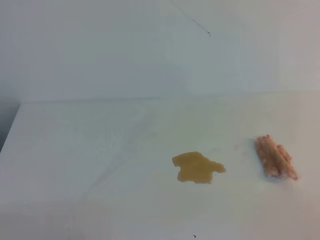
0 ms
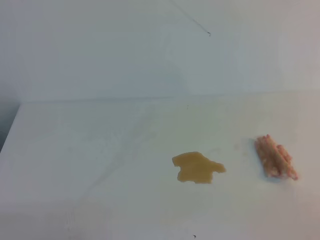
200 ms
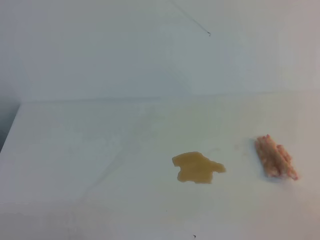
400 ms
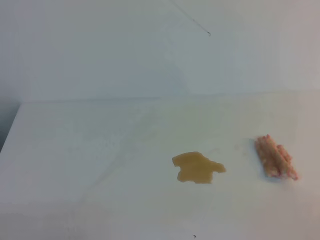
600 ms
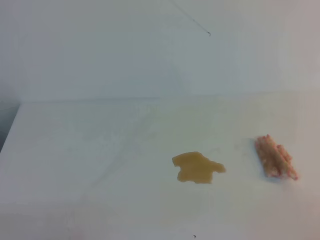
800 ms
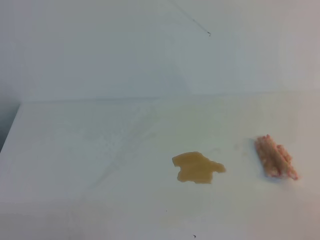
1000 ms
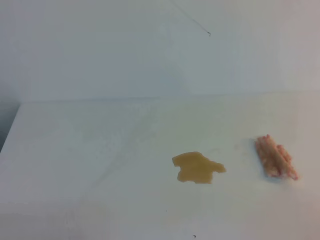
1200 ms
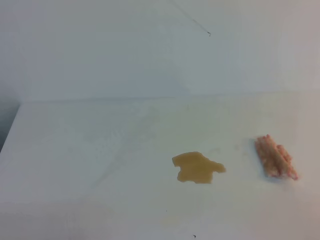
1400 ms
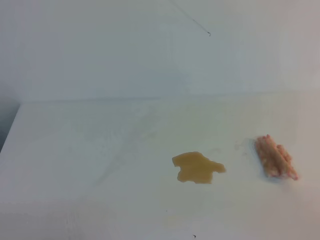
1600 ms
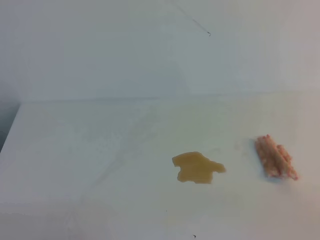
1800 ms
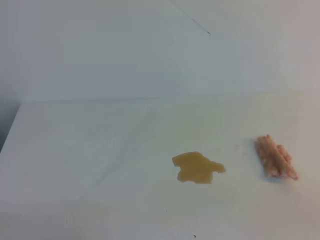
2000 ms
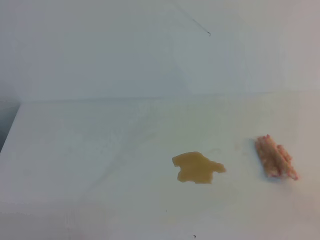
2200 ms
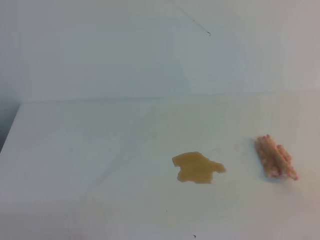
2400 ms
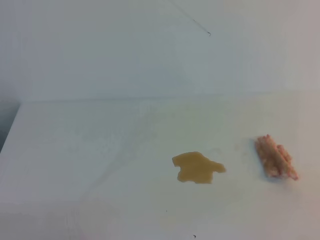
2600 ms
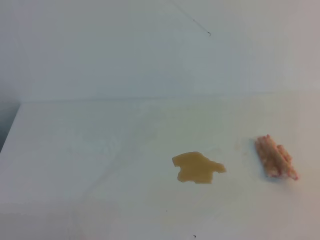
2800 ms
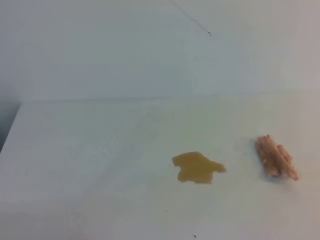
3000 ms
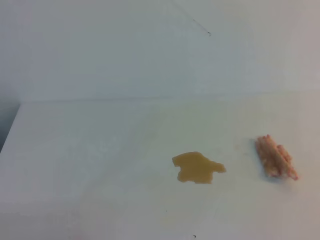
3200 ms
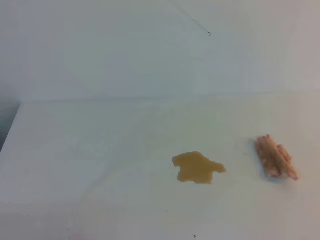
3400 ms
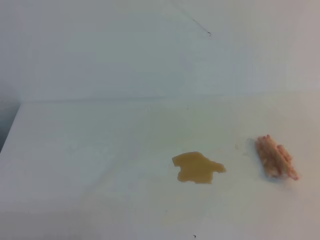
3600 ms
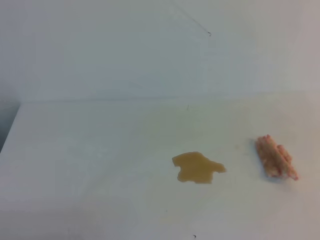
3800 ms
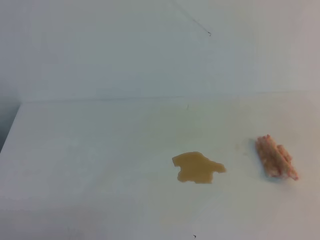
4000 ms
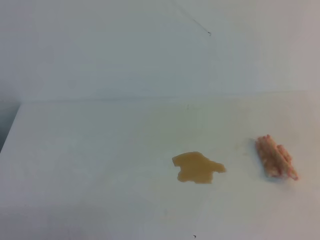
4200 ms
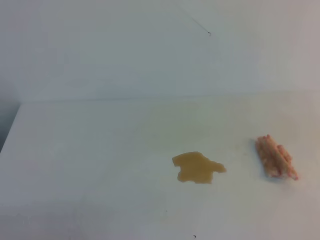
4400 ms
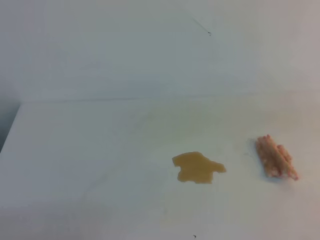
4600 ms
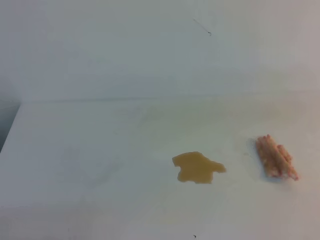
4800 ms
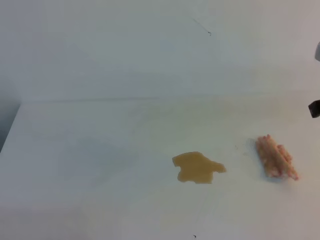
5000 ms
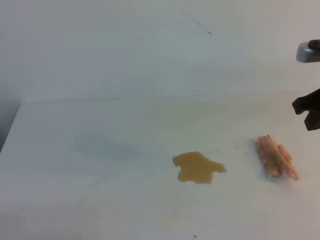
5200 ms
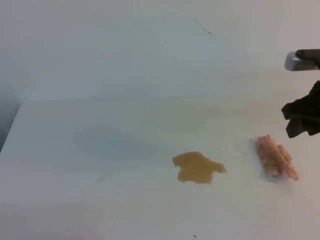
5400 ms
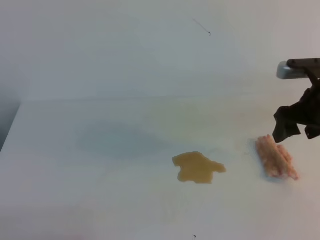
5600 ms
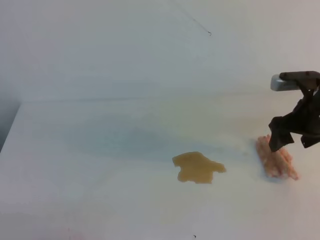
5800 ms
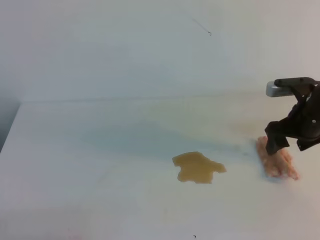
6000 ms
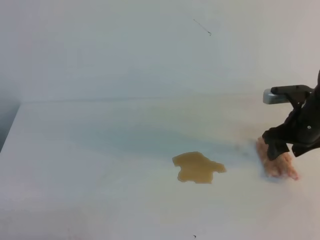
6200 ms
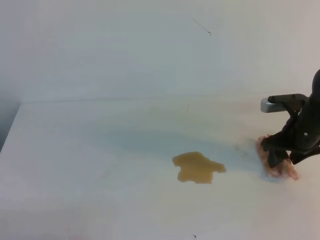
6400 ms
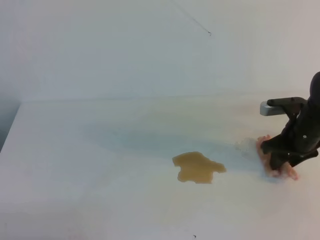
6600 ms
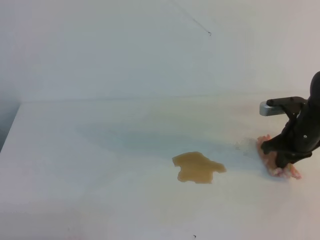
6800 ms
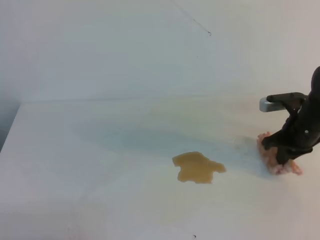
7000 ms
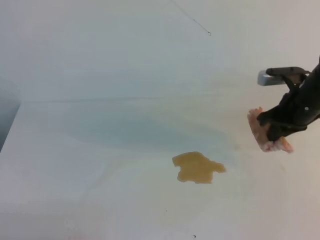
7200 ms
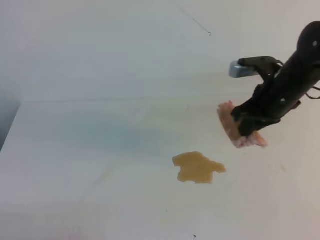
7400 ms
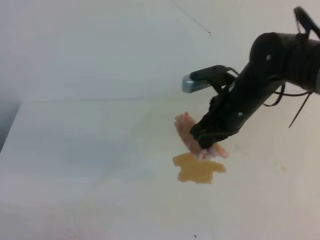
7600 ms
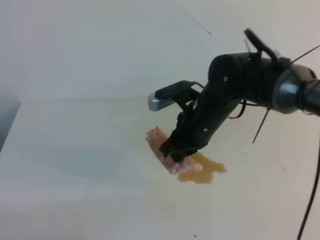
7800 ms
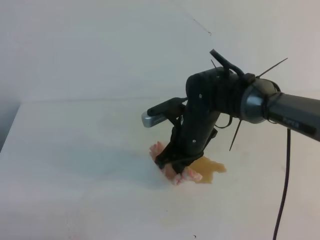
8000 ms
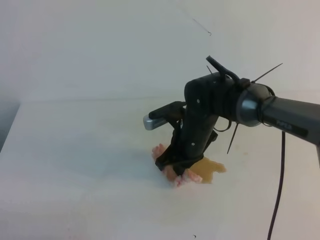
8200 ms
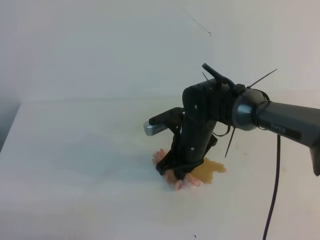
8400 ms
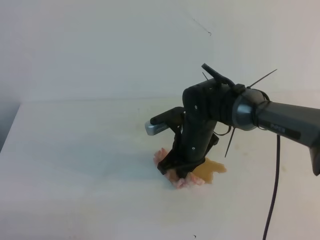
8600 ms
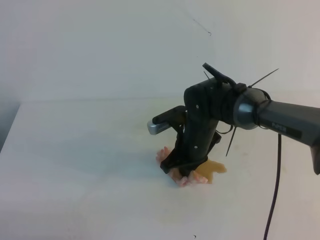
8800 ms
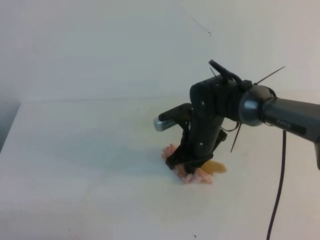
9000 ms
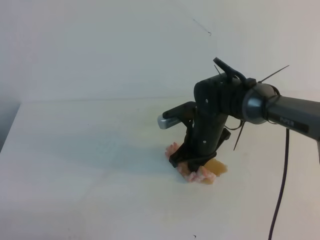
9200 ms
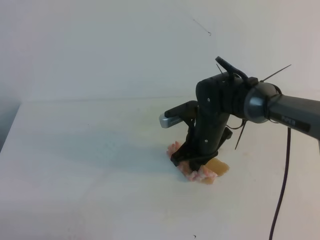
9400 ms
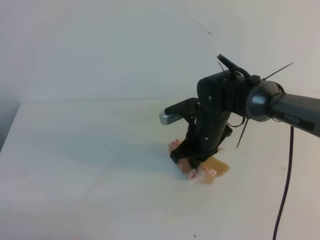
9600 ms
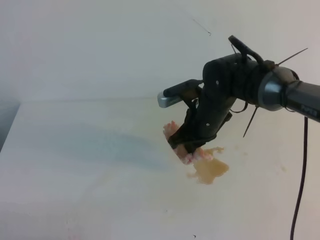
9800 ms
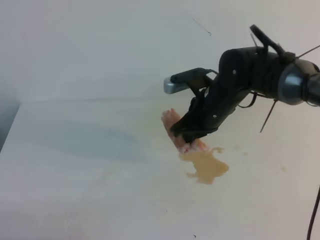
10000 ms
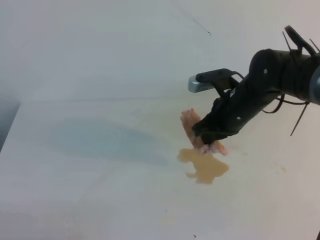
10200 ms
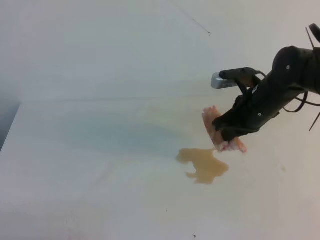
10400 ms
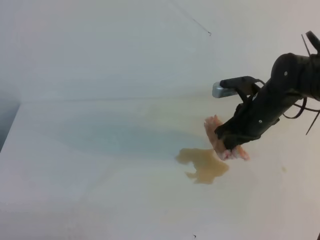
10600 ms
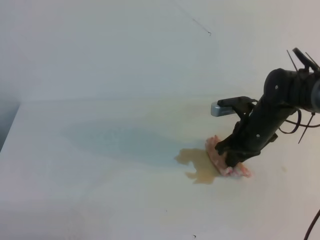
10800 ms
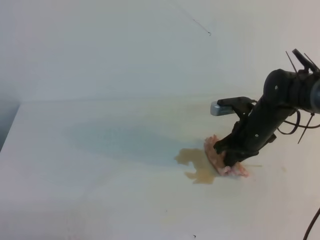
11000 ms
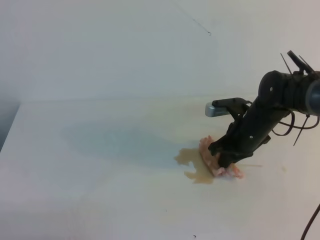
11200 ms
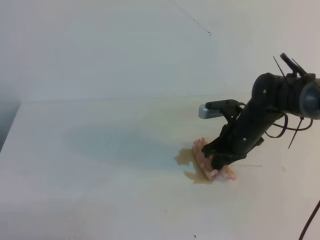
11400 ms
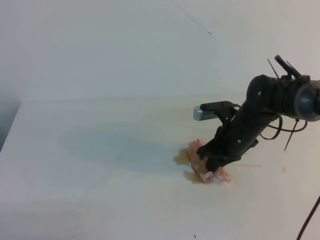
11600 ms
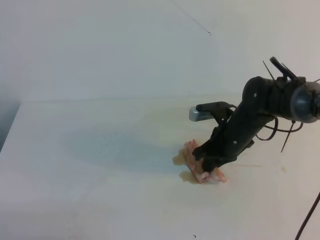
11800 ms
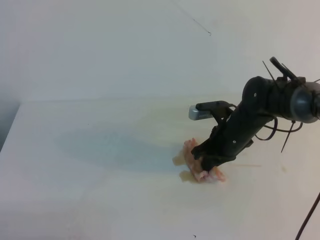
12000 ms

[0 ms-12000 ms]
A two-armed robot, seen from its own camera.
0 ms to 1600 ms: The two grippers keep their place.
4400 ms to 6000 ms: The right gripper goes approximately 25 cm forward and downward, and opens its fingers.
6000 ms to 7600 ms: The right gripper moves to the left, about 10 cm, and closes.
7600 ms to 9000 ms: The right gripper moves downward and to the left, roughly 10 cm.
9000 ms to 10400 ms: The right gripper travels to the right and upward by roughly 10 cm.
10400 ms to 12000 ms: The right gripper shifts roughly 5 cm downward.

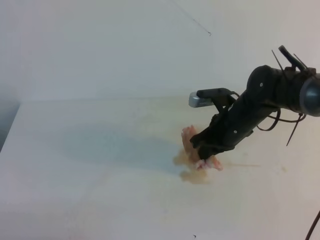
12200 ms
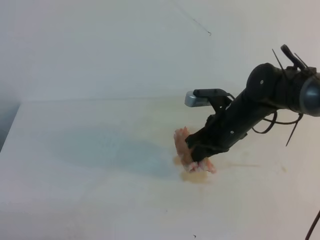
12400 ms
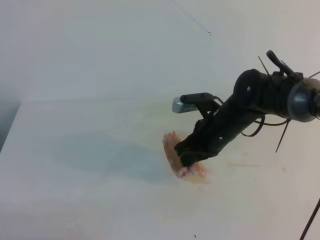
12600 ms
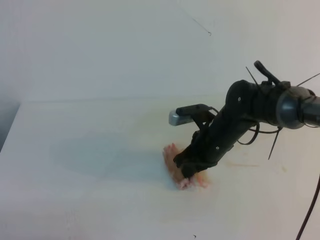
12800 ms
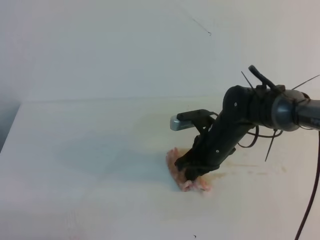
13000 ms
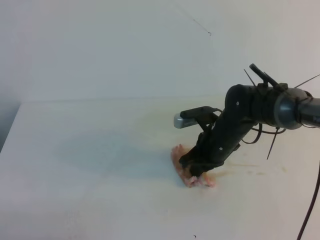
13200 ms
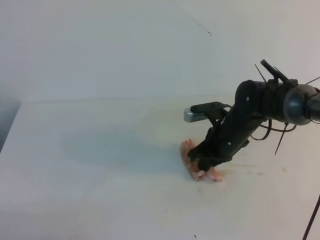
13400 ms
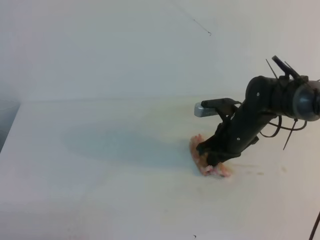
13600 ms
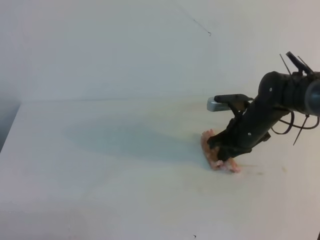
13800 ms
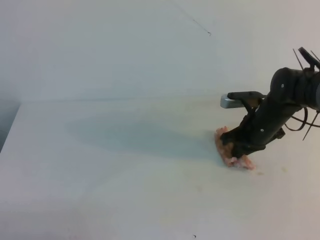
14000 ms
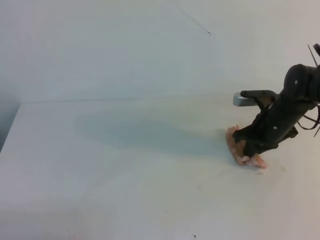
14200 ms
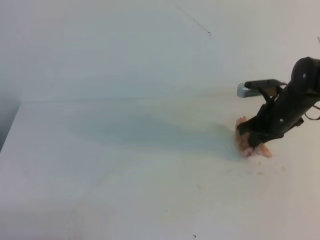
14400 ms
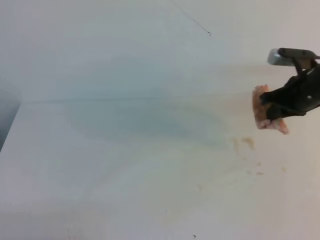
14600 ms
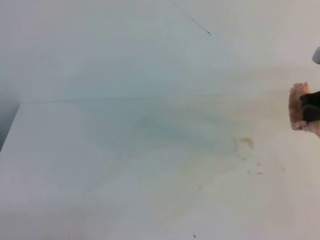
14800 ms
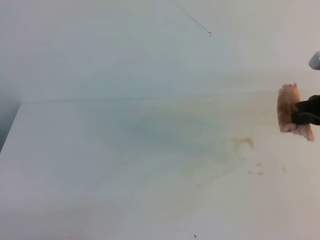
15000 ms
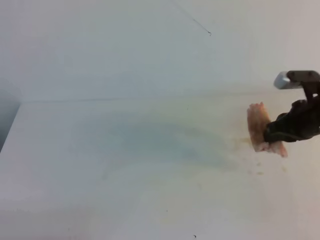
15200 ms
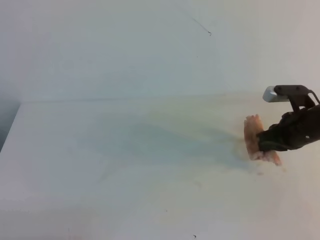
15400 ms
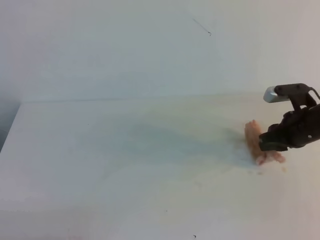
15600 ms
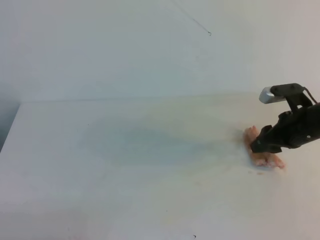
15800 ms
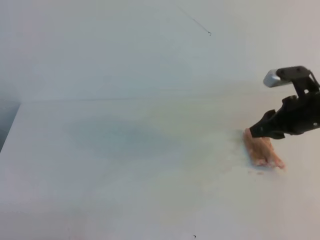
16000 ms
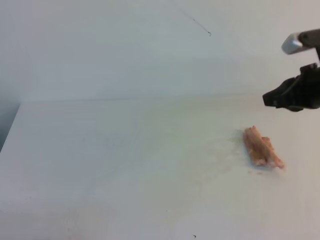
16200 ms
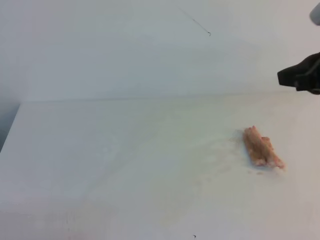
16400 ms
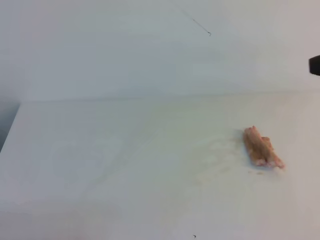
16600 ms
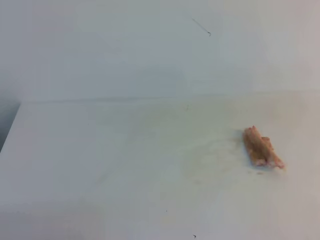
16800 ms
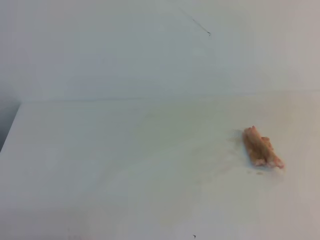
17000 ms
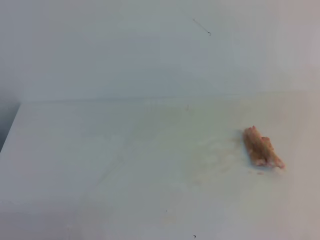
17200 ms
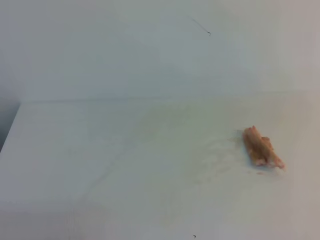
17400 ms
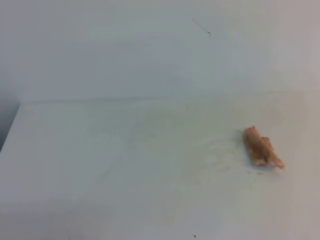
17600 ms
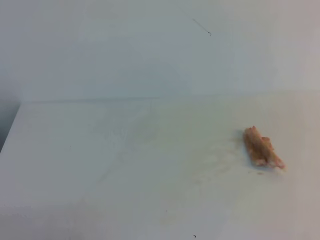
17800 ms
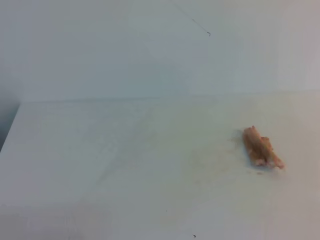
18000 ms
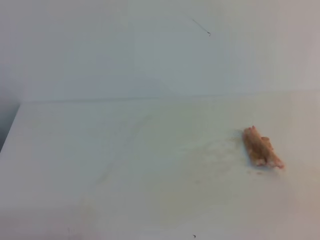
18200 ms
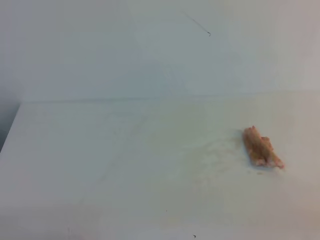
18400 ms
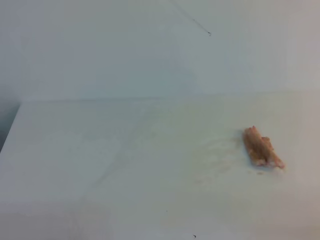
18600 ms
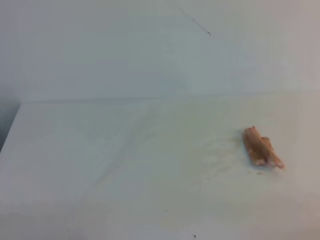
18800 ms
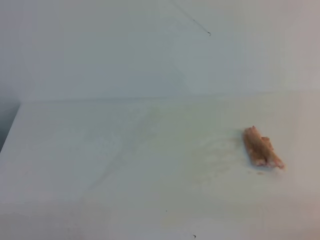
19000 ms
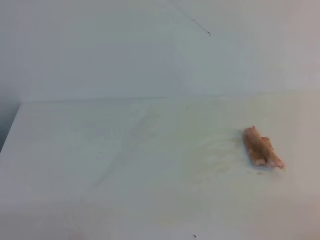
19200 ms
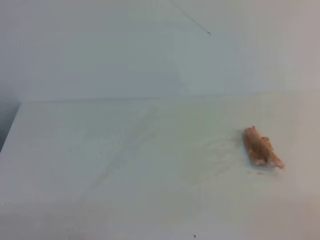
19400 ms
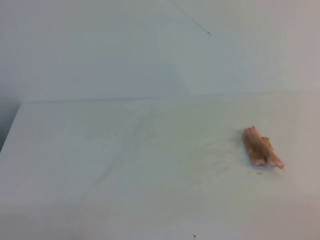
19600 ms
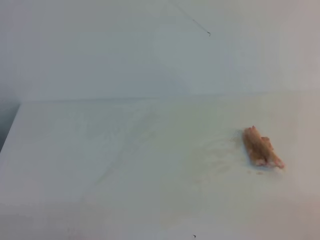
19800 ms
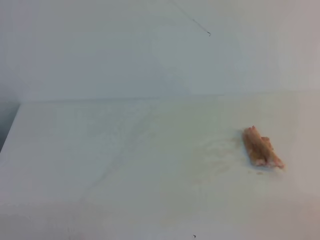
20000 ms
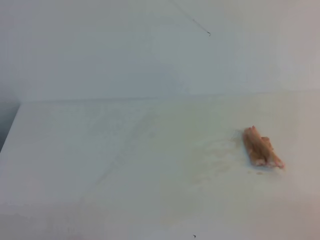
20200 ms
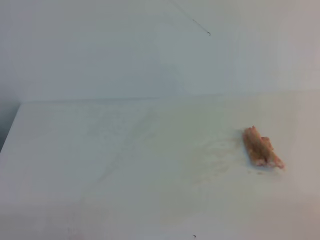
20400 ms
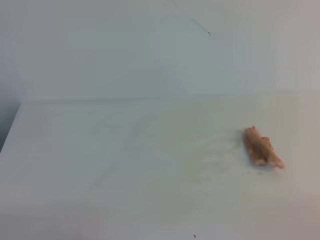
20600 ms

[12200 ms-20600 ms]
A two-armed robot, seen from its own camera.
12200 ms to 13600 ms: The grippers move only a little.
13600 ms to 15000 ms: The right gripper travels to the right and upward by roughly 20 cm.
15000 ms to 16400 ms: The right gripper goes roughly 10 cm upward and backward, and opens, then closes again.
16400 ms to 17800 ms: The right gripper travels backward by about 20 cm.

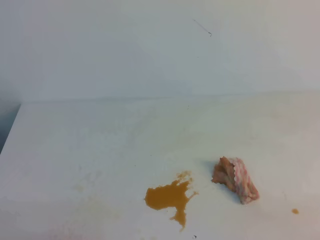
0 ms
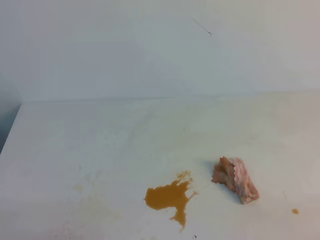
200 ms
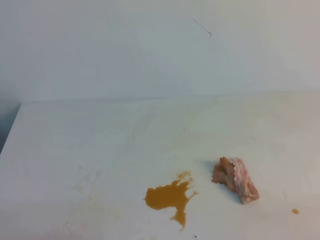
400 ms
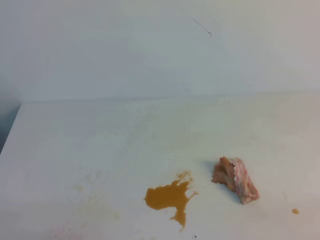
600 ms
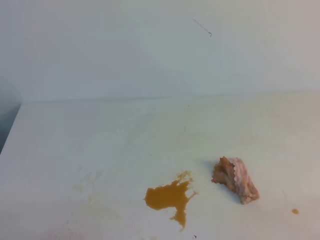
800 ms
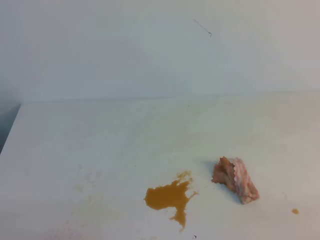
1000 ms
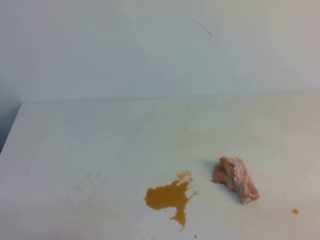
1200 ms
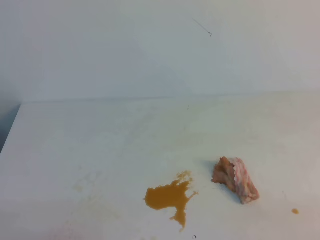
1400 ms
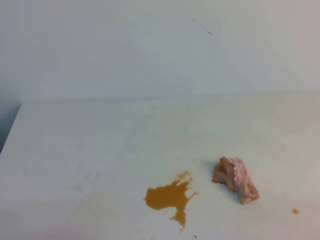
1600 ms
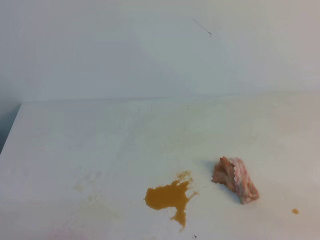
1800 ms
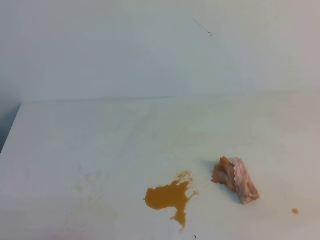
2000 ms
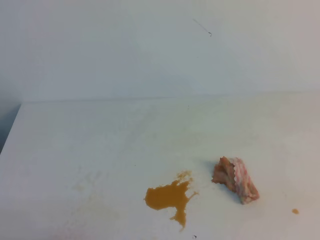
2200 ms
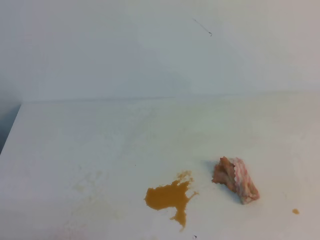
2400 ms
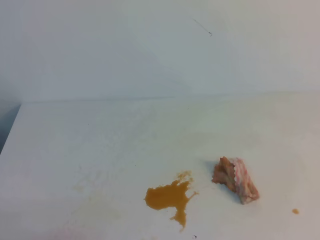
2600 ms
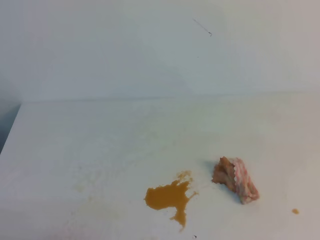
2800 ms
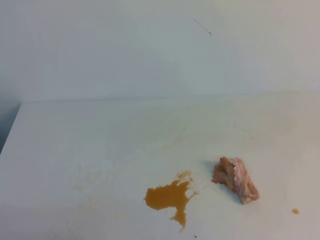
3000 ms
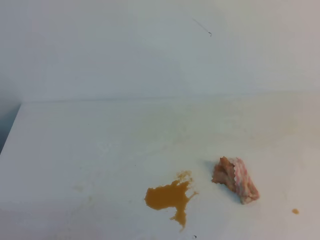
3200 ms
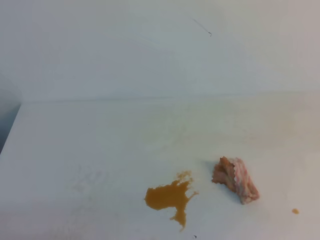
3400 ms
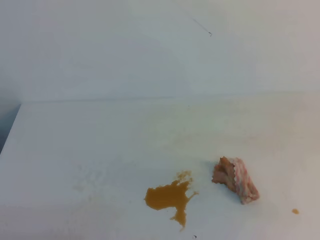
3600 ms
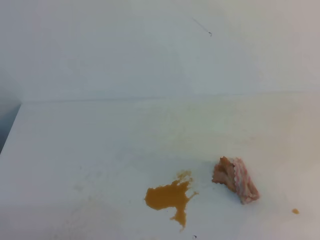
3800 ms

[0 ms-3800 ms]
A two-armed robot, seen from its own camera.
0 ms to 1200 ms: Both grippers stay about where they are.
